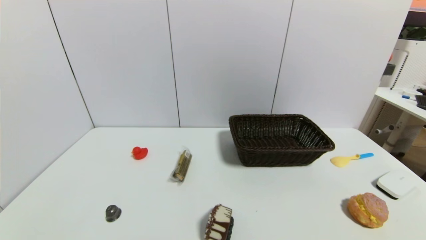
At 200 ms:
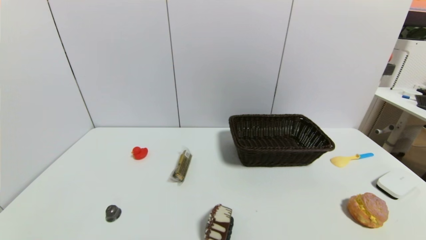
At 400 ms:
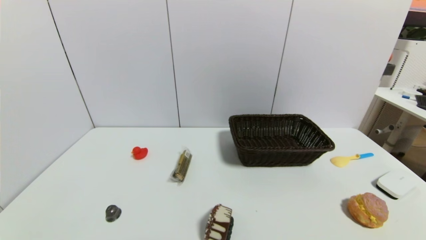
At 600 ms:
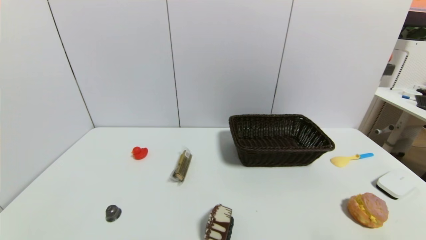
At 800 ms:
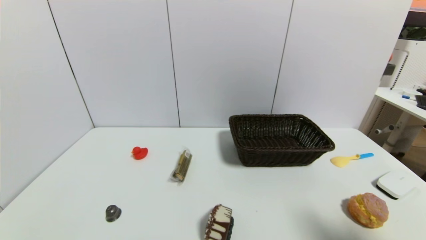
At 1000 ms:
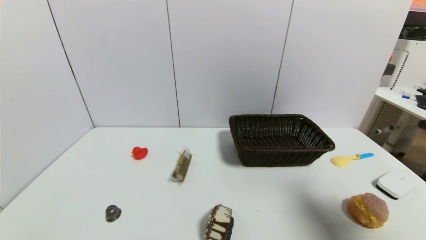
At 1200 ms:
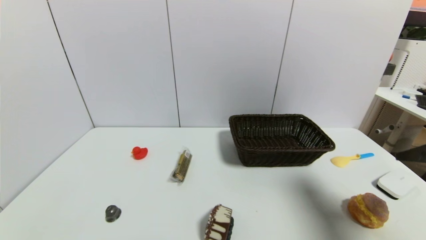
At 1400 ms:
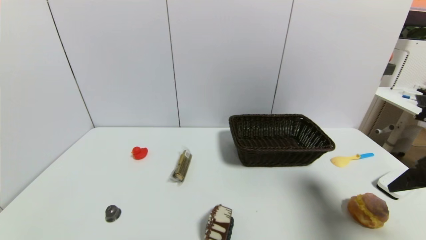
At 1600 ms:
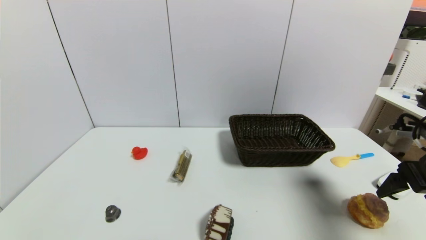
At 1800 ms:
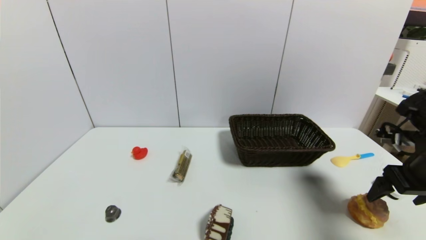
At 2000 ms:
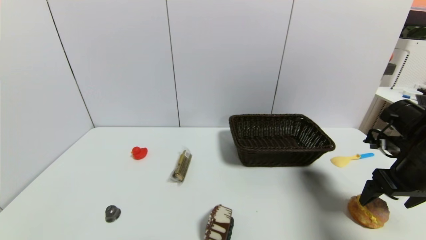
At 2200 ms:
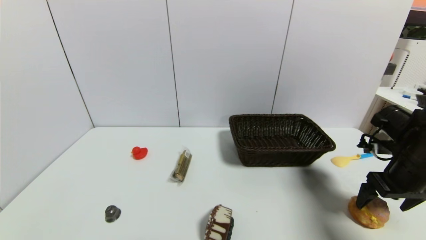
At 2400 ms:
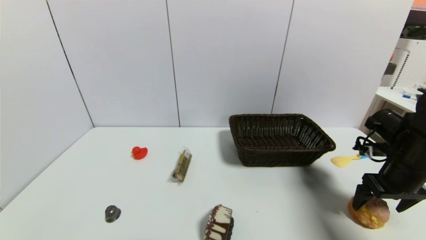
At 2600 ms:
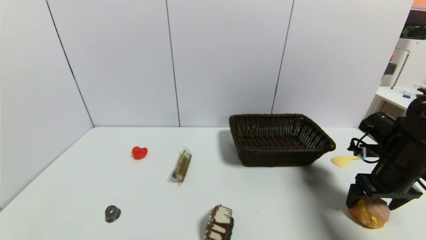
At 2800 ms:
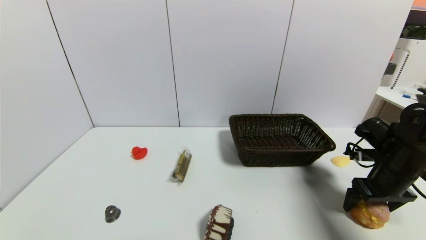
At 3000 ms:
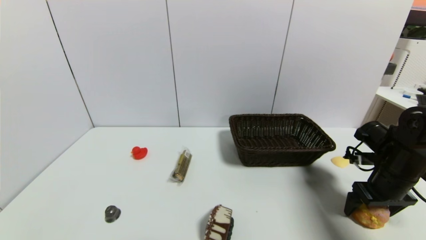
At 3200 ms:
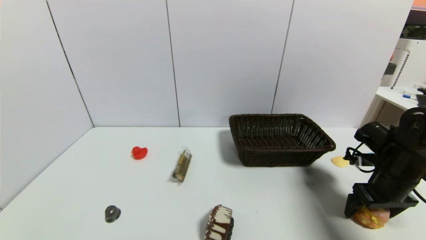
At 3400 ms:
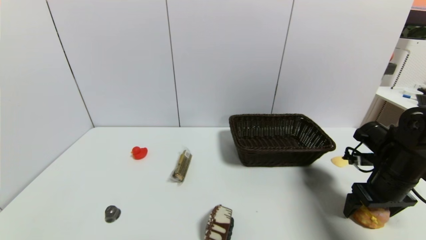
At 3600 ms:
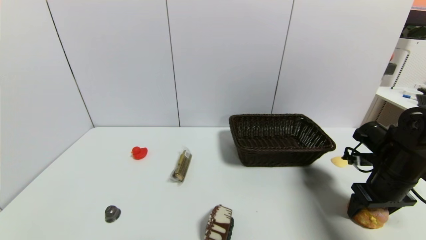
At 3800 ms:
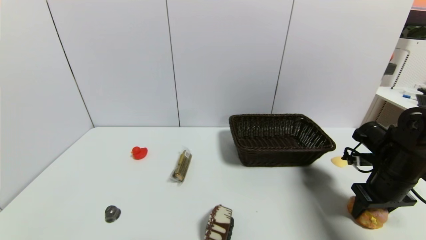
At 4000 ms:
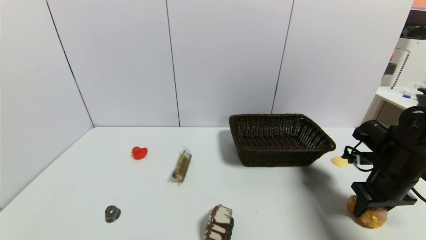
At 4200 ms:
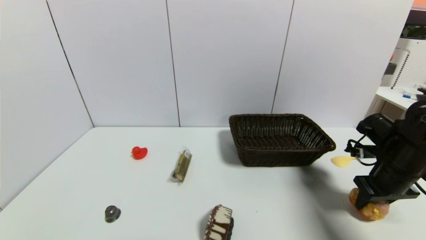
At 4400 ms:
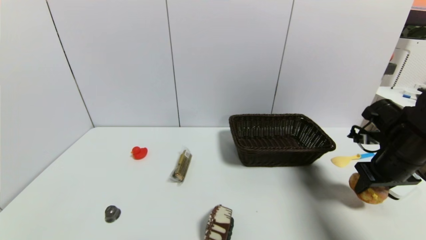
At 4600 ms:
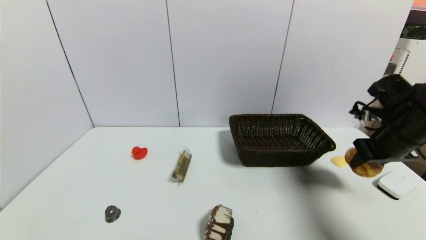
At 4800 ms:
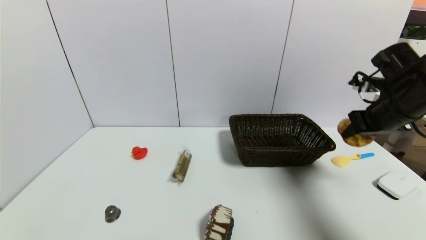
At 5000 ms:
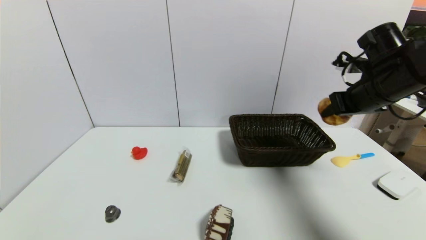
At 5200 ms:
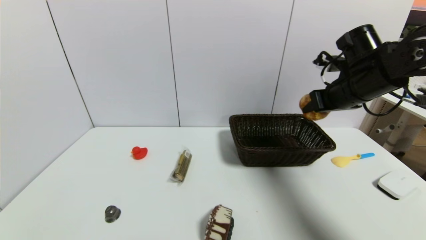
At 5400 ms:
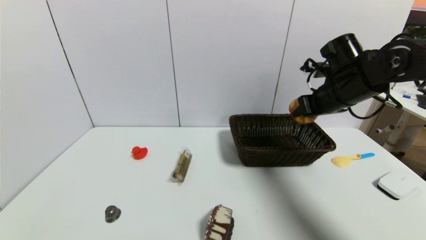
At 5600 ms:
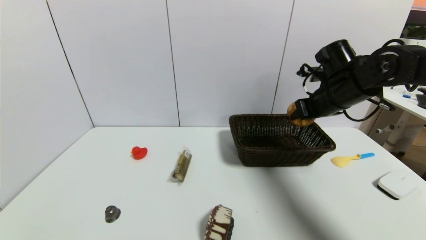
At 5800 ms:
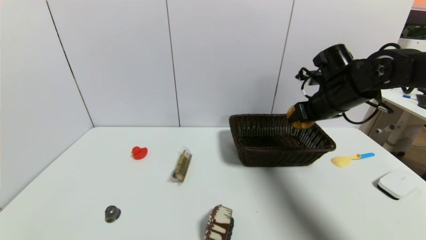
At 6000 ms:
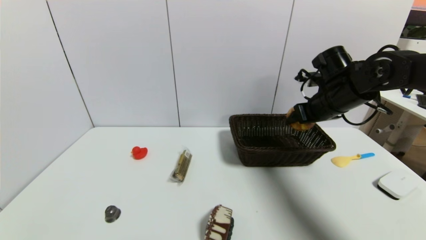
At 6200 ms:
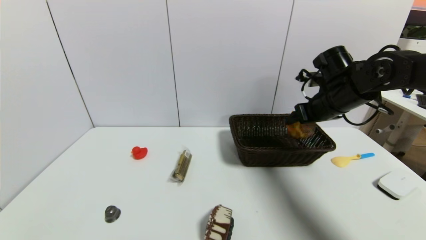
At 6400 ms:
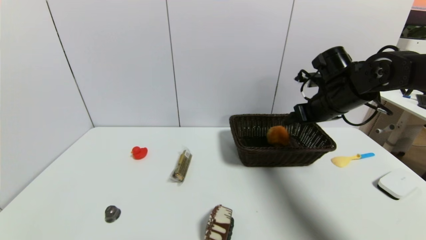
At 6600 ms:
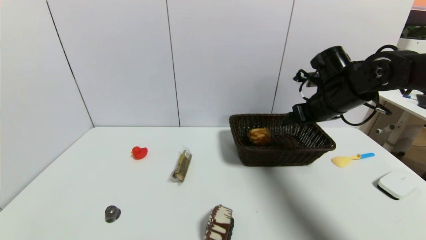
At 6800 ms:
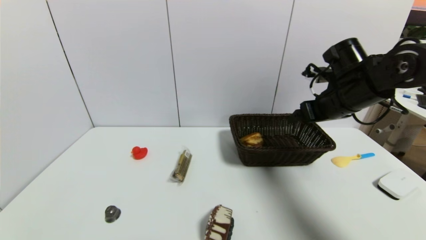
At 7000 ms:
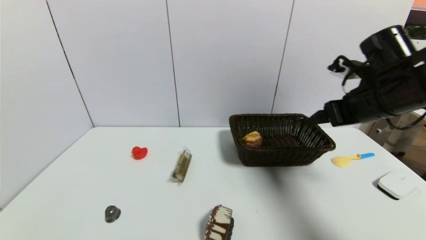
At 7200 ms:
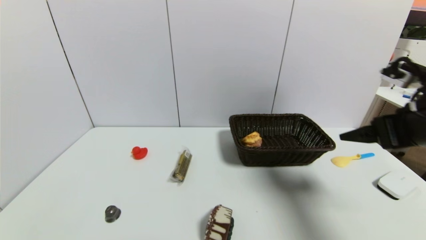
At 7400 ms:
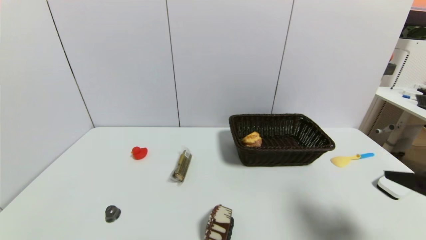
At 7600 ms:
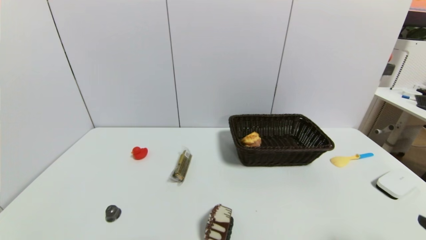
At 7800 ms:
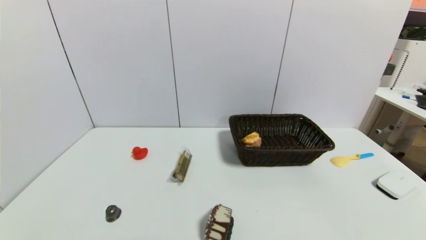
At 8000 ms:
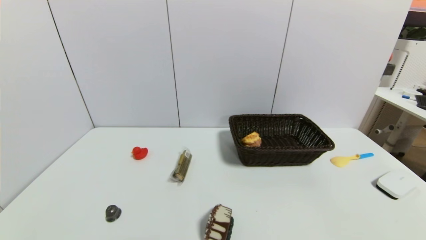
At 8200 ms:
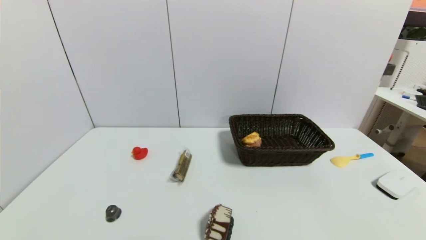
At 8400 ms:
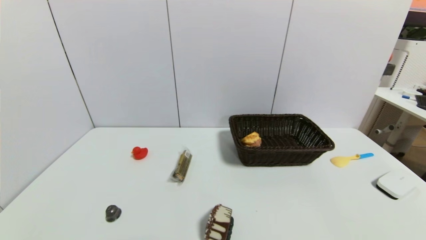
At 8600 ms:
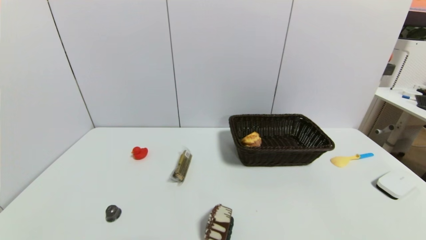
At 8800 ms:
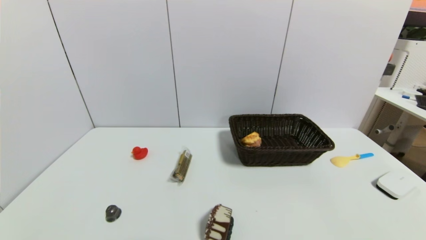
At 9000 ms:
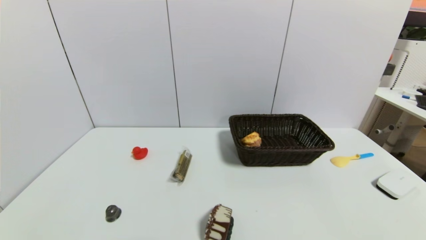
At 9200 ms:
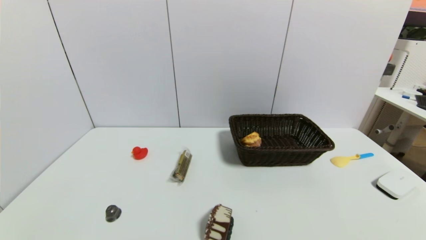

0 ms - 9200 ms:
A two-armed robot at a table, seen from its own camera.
Task of the whole recording: use a gripper to pick the target object and place on the brown basket.
Step, 0 ms - 3600 ms: Grasp the round bread with the right gripper.
Step, 3800 ms - 6600 ms: Place the round bread into the basket with the right gripper.
0 ms - 1600 ms: The right gripper goes roughly 25 cm forward and upward.
1600 ms - 3000 ms: The right gripper goes about 10 cm downward and forward.
3000 ms - 4600 ms: The right gripper moves upward, roughly 10 cm, and closes up.
4600 ms - 6200 ms: The right gripper shifts approximately 10 cm to the left and forward, and opens.
6200 ms - 7600 ms: The right gripper shifts about 35 cm backward.
